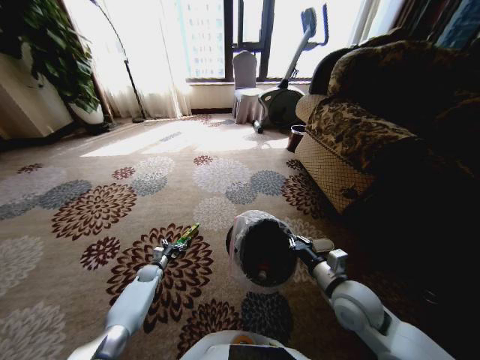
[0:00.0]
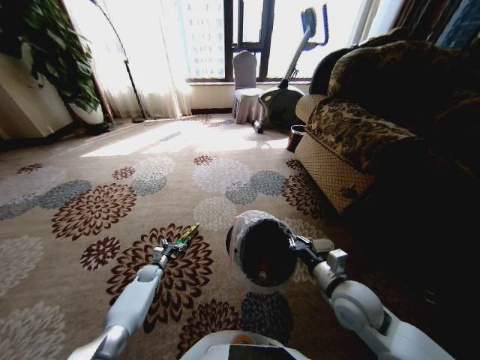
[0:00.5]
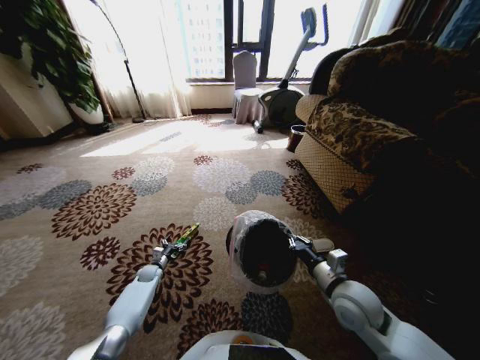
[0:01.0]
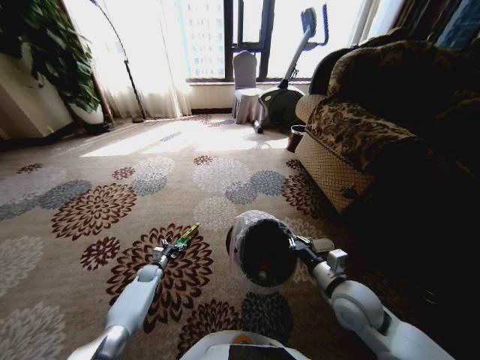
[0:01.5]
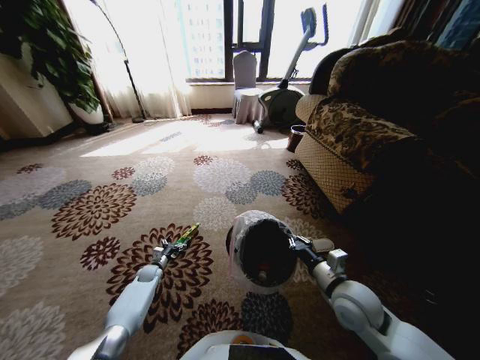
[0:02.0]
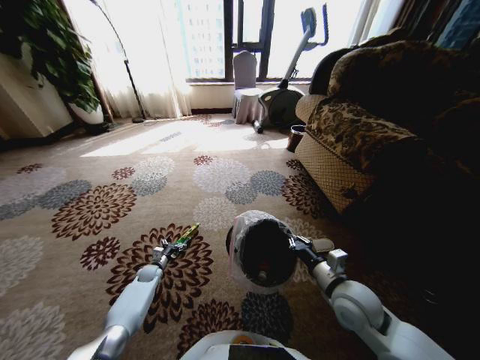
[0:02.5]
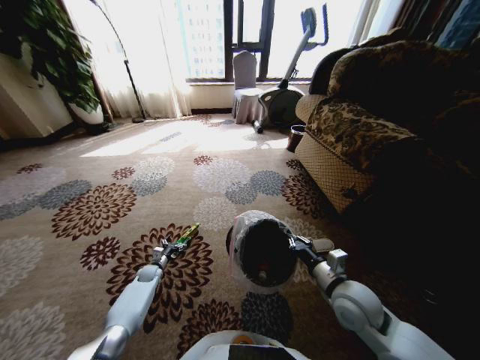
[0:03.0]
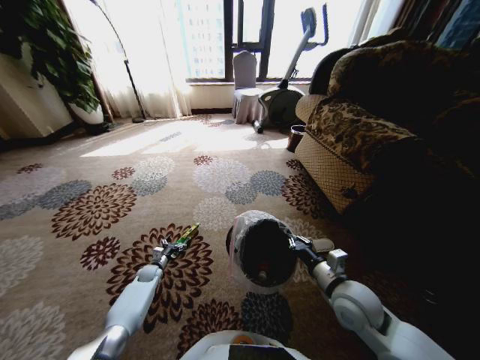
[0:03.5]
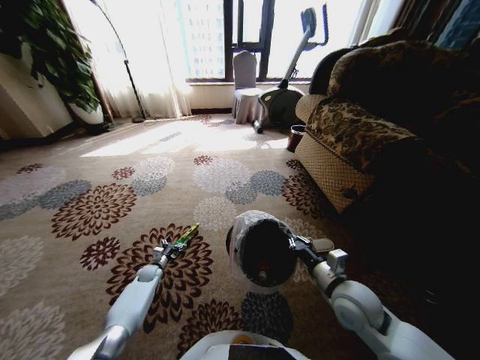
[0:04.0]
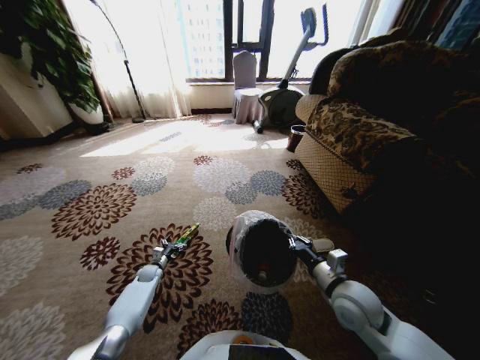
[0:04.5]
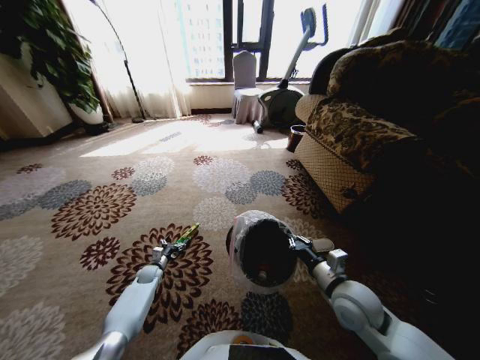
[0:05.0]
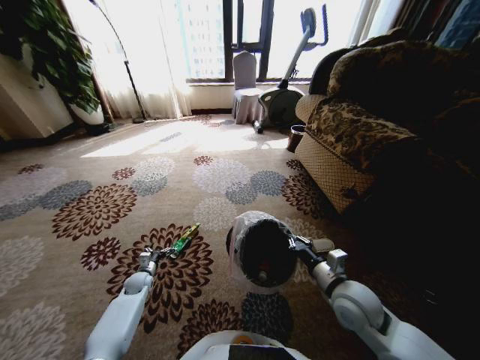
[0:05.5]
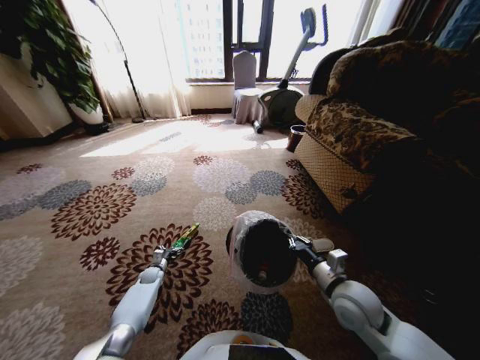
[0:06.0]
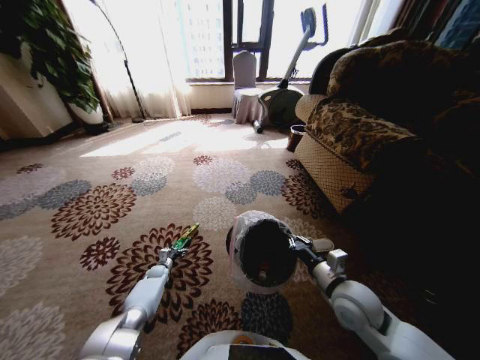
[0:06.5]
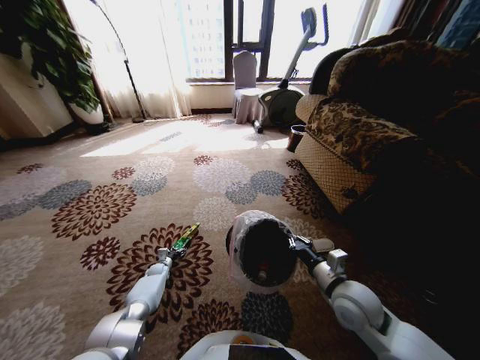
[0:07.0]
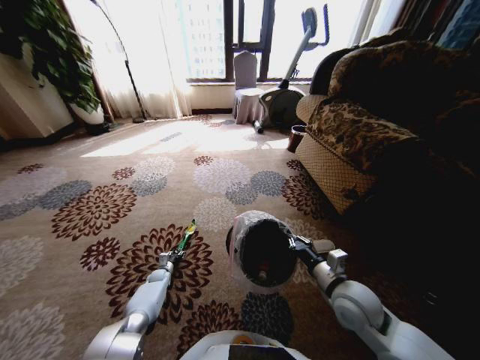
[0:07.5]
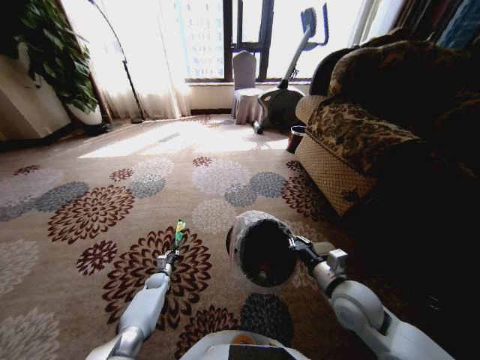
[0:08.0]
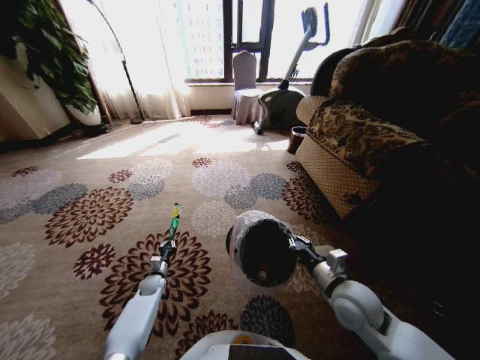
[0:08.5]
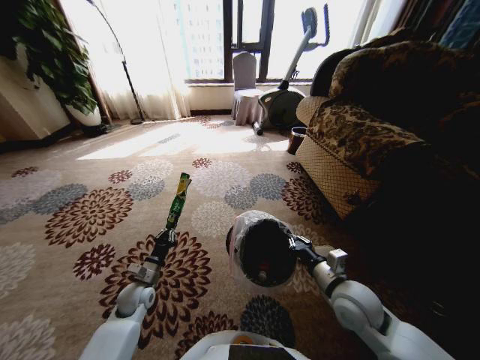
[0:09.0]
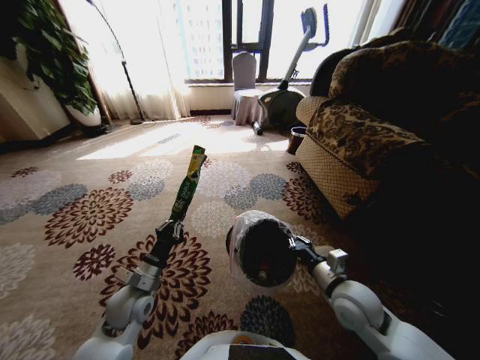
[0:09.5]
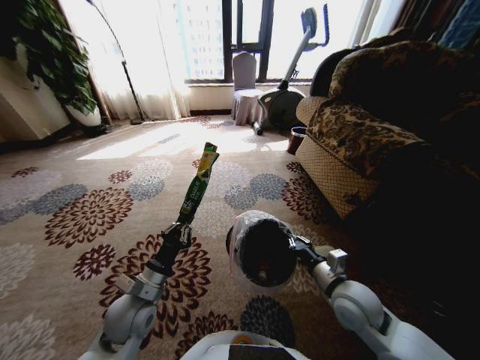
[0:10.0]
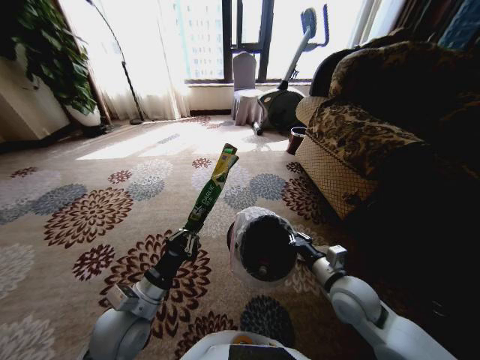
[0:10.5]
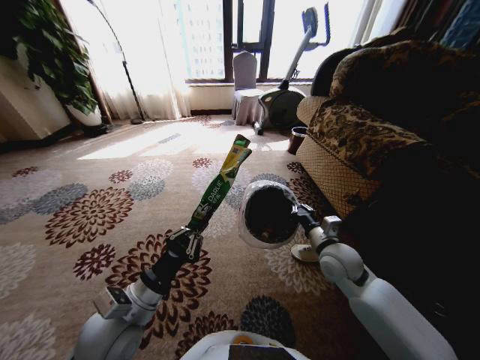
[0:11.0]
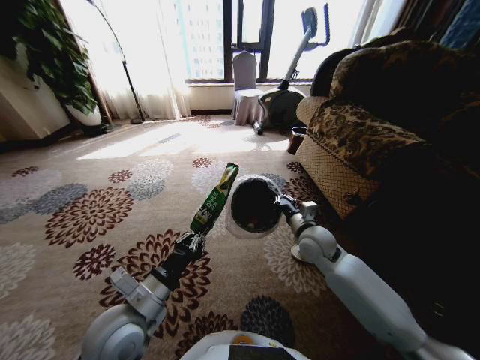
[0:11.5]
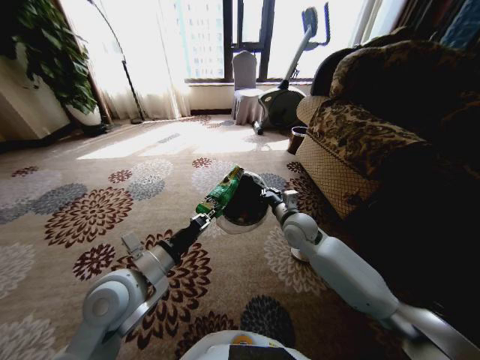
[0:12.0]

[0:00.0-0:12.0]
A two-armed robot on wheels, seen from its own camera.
Task of the whole recording: Pick up the trash from the ground and place it into the trash bin.
0:00.0 to 0:04.0: Both grippers stay about where they are.
0:06.0 to 0:08.0: The left gripper closes its fingers.
0:08.0 to 0:10.0: The left gripper heads upward and backward, covering about 35 cm.
0:10.0 to 0:12.0: The right gripper goes some 20 cm forward and to the left, while the left gripper travels upward by roughly 10 cm.

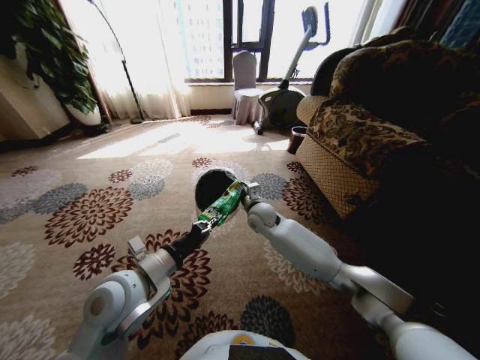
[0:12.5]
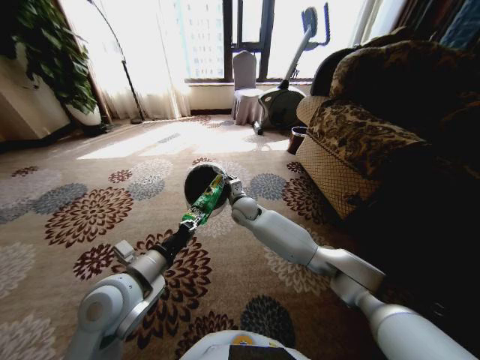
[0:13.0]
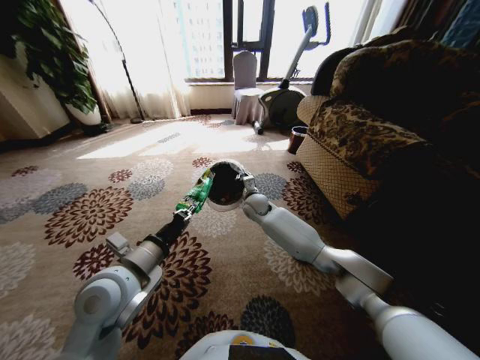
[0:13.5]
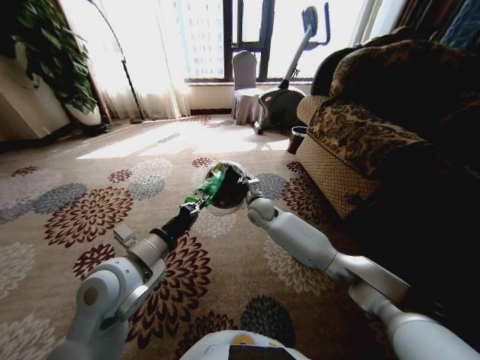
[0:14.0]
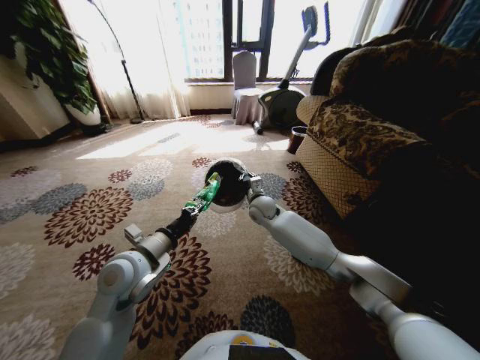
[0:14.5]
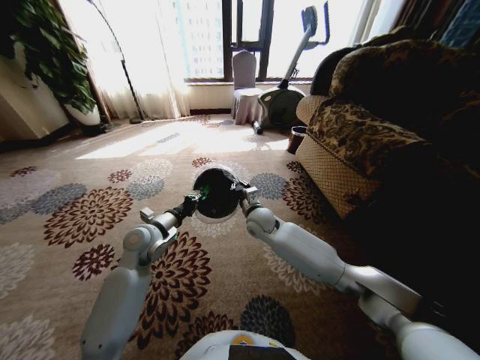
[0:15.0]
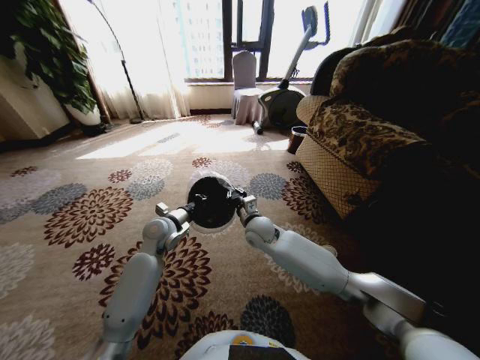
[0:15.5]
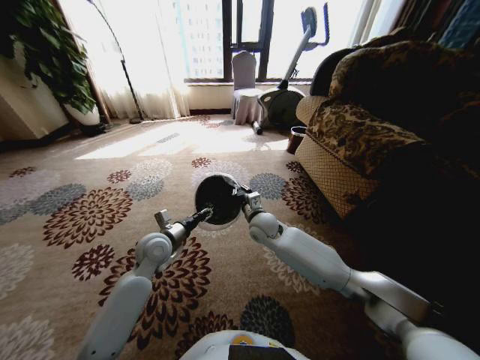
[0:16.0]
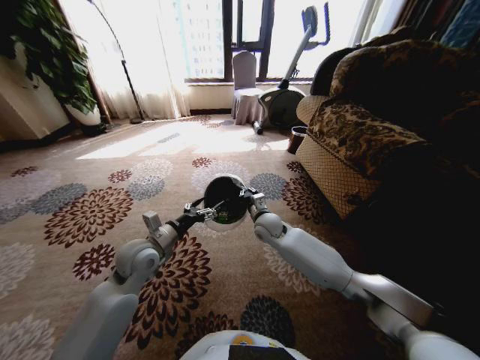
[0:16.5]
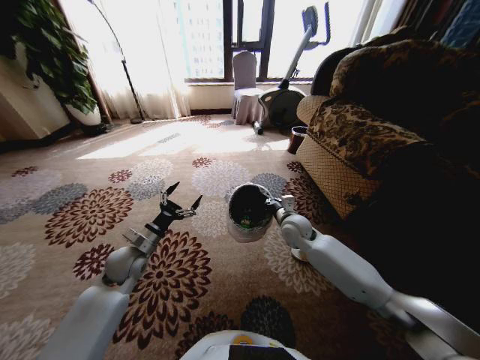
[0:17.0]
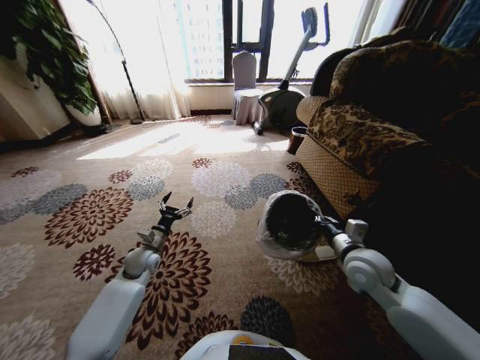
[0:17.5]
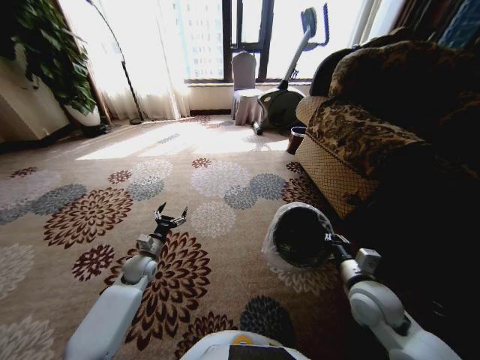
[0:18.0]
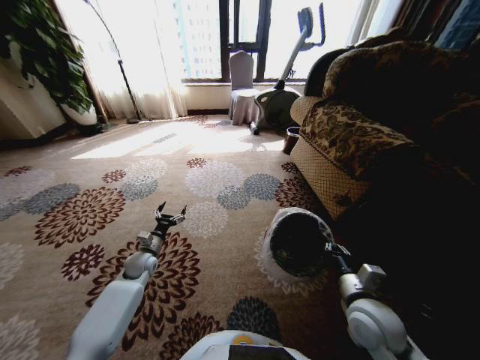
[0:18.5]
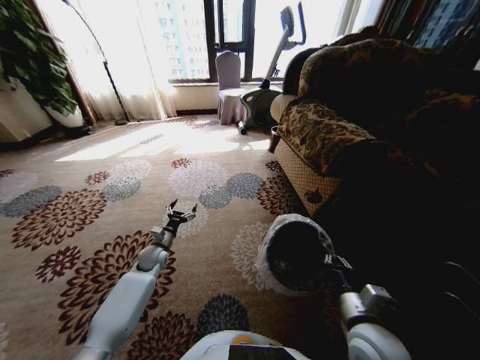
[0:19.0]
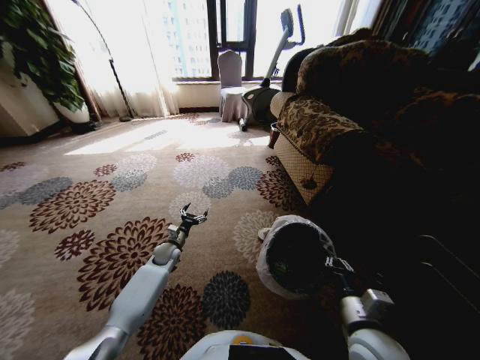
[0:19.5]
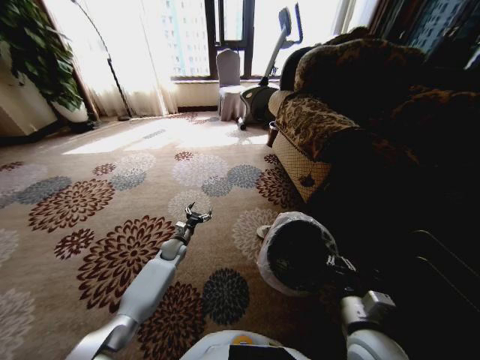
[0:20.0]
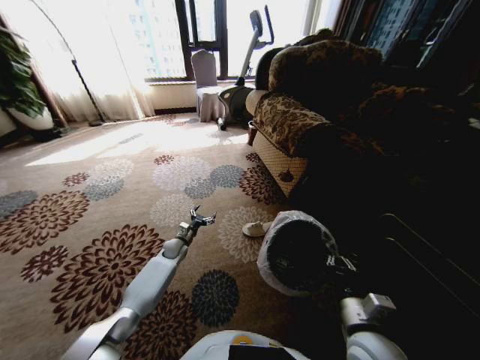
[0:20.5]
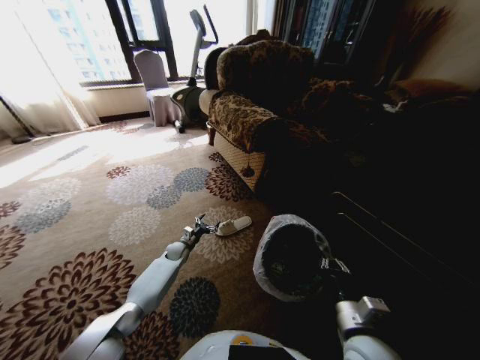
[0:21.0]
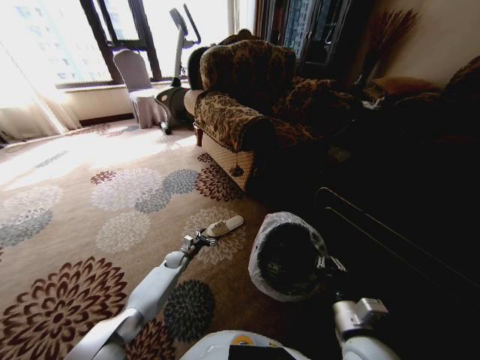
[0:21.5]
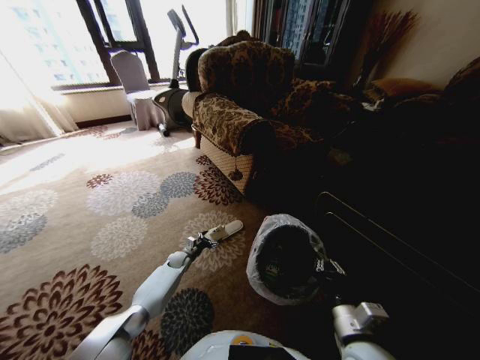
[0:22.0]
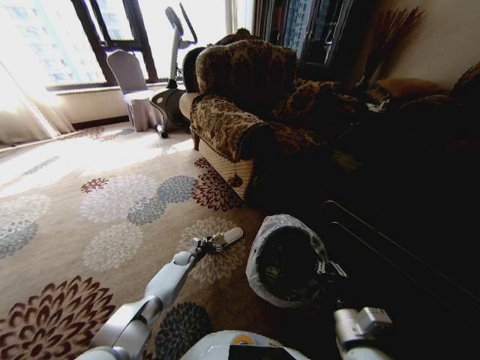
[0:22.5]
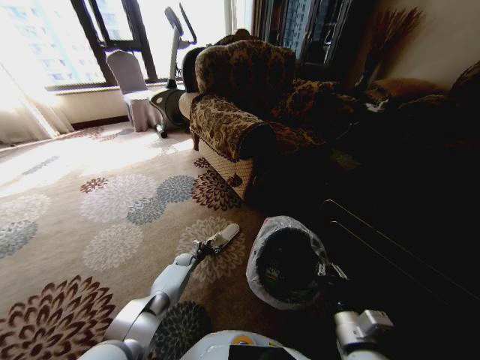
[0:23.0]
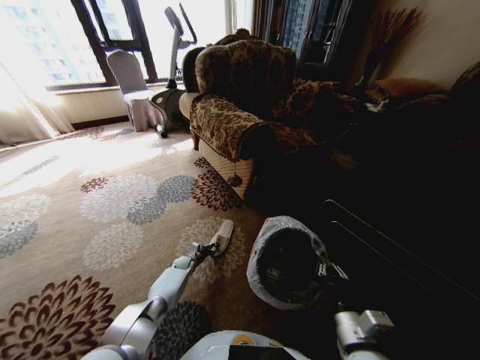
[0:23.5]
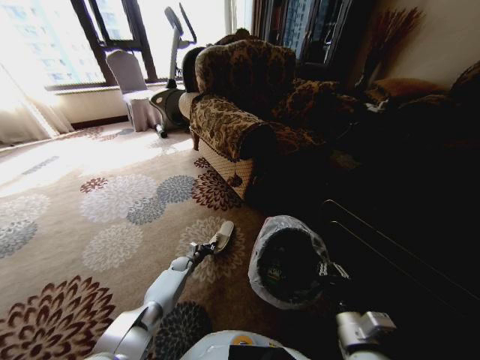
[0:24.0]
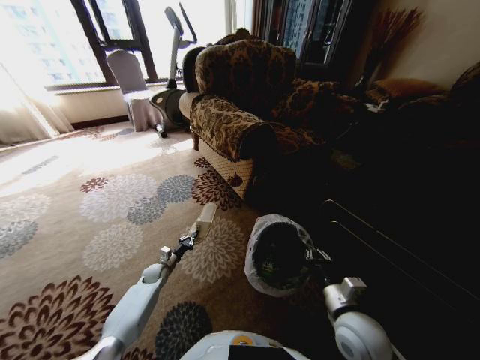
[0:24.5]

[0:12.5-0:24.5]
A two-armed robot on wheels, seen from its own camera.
Task of the whole recording: Pick up the trash from the ground and place it into the trash bin.
0:14.5 to 0:16.5: The right gripper moves backward, approximately 5 cm. Meanwhile the left gripper is displaced forward by approximately 5 cm, and opens its fingers.
0:16.5 to 0:18.5: The right gripper heads backward and to the right, covering some 30 cm. Meanwhile the left gripper shifts about 20 cm downward and to the left.
0:18.5 to 0:20.5: The left gripper moves forward, to the right and downward, roughly 15 cm; the right gripper goes some 5 cm backward.
0:20.5 to 0:22.5: The left gripper goes some 10 cm downward.
0:22.5 to 0:24.5: The right gripper shifts roughly 5 cm forward; the left gripper is displaced to the left and backward by about 10 cm, and closes its fingers.

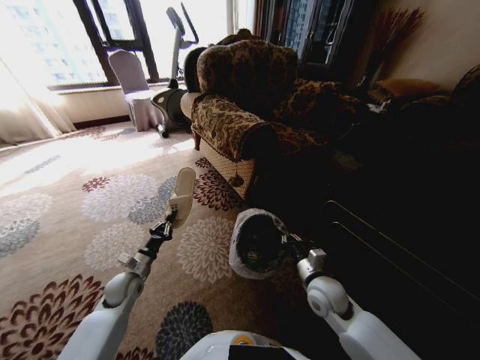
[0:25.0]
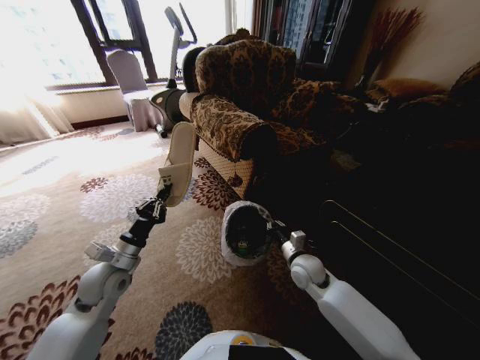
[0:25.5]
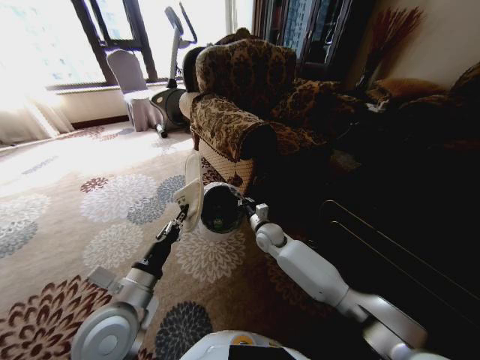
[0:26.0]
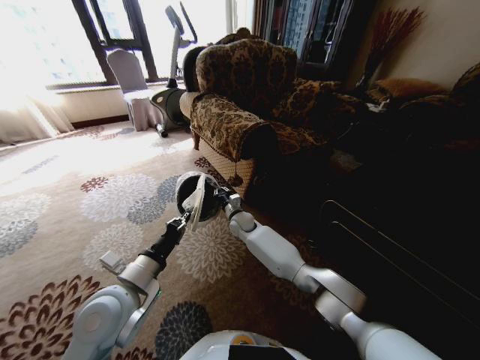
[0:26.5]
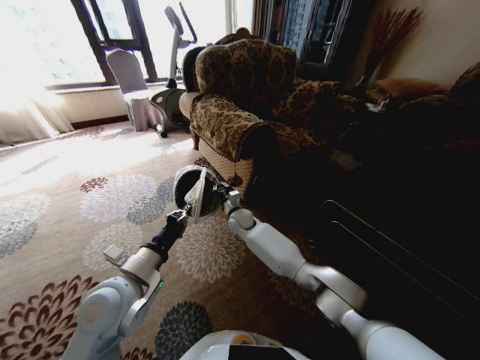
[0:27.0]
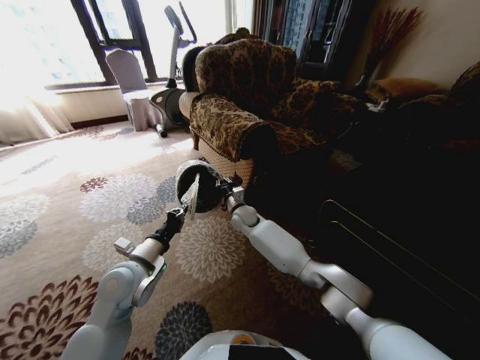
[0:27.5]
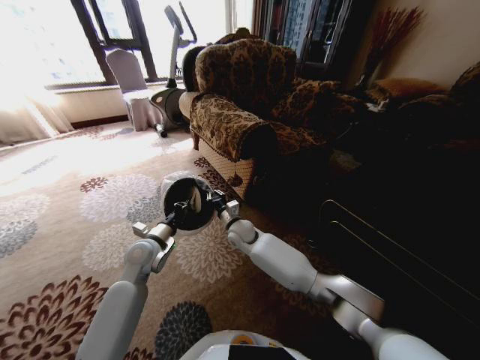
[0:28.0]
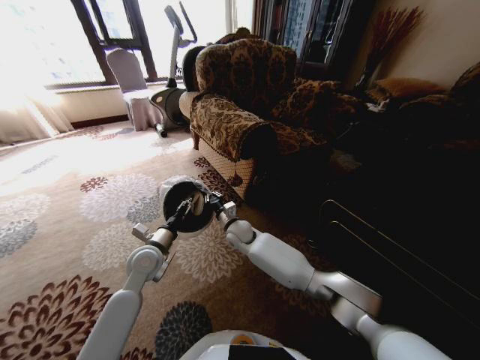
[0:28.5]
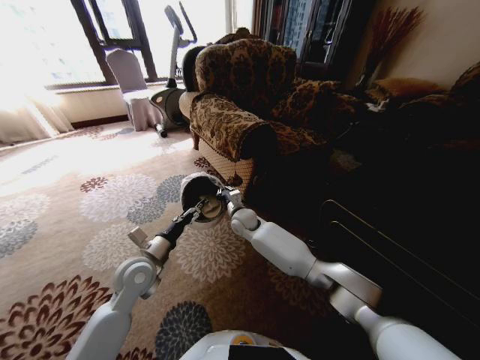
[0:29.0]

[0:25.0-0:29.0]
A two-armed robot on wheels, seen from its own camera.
Task of the whole recording: Pick up the trash from the ground and place it into the trash bin.
0:25.0 to 0:27.0: The left gripper heads upward, to the right and backward, covering approximately 25 cm; the right gripper shifts roughly 35 cm to the left and forward.
0:27.0 to 0:29.0: The left gripper moves forward and downward, some 10 cm, and opens its fingers.
